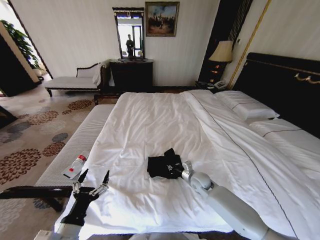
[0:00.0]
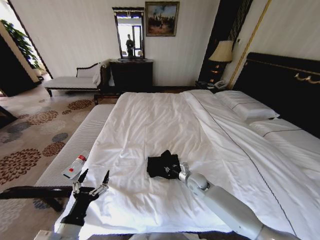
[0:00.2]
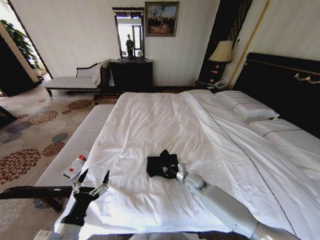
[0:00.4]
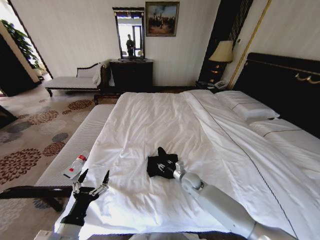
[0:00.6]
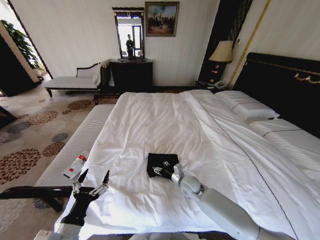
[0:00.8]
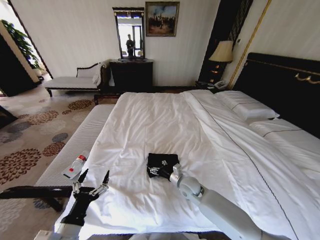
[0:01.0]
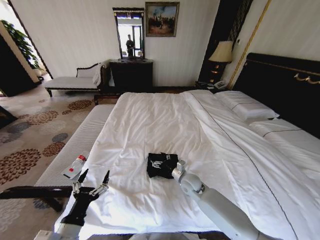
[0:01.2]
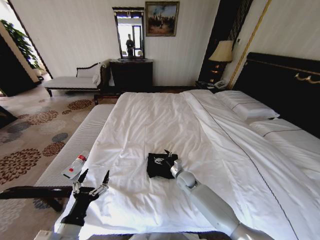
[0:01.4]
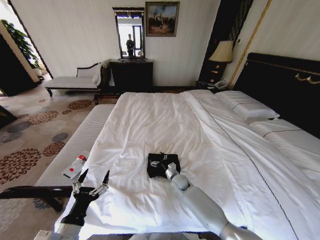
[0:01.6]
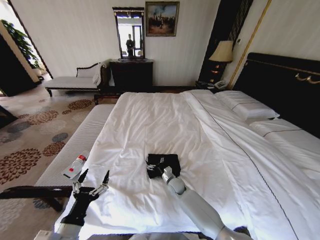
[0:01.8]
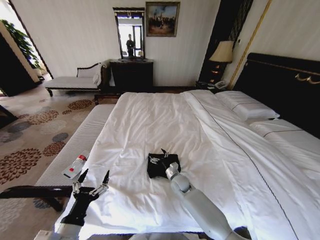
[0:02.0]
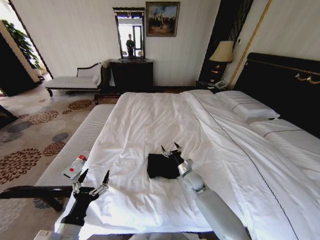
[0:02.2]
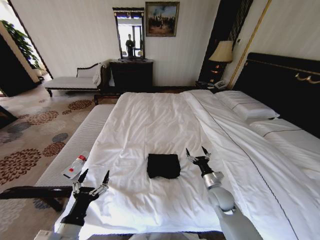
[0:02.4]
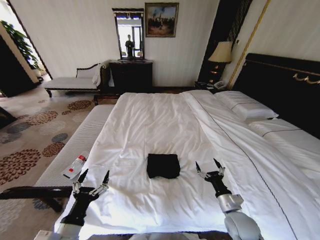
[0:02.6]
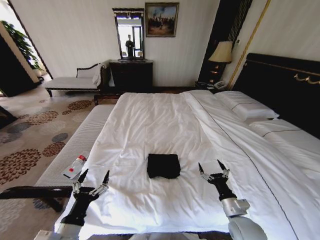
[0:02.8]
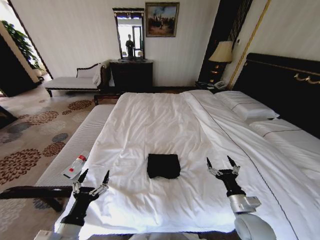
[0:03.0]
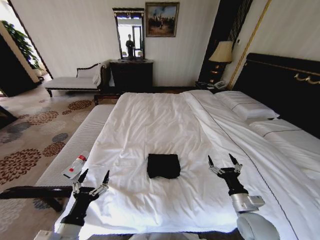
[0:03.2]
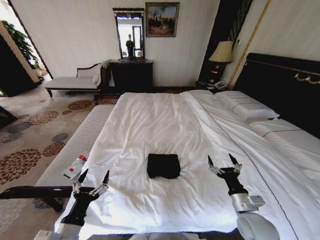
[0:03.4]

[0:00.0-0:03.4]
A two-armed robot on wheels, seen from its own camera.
Task of the whole recording: Fold the clothes on the bed.
0:00.0 to 0:01.6: The right gripper travels to the left and downward by roughly 10 cm, and opens up.
0:01.6 to 0:03.4: The right gripper moves backward, to the right and upward, roughly 30 cm.

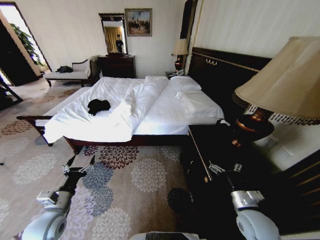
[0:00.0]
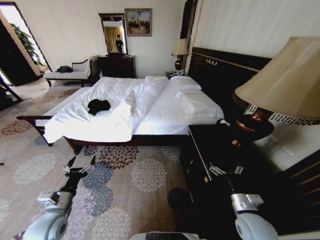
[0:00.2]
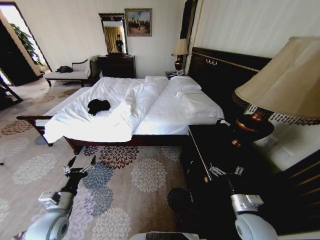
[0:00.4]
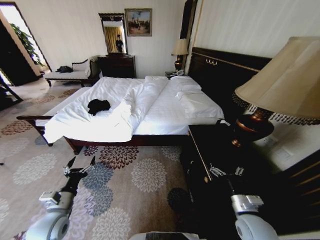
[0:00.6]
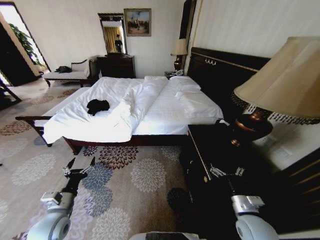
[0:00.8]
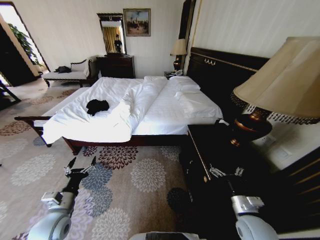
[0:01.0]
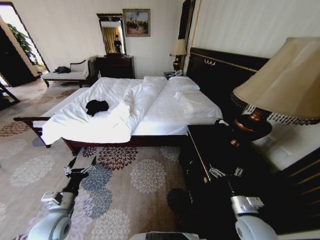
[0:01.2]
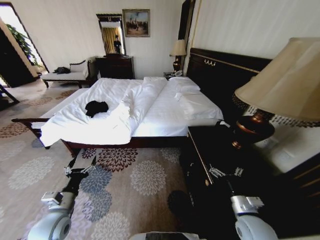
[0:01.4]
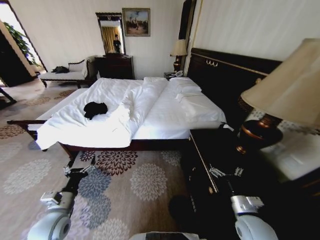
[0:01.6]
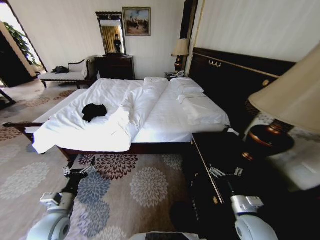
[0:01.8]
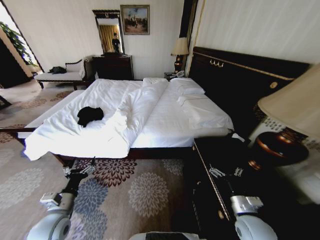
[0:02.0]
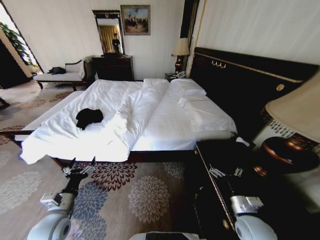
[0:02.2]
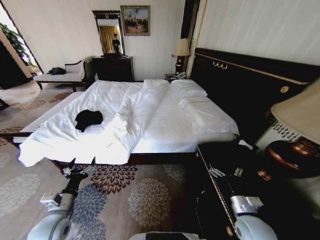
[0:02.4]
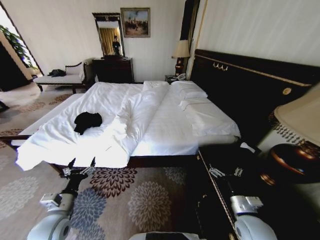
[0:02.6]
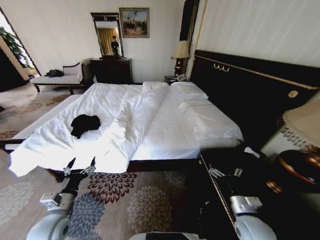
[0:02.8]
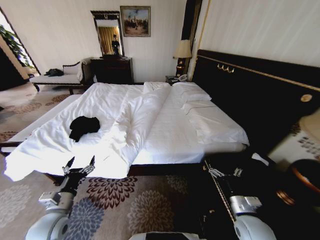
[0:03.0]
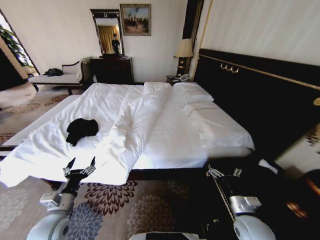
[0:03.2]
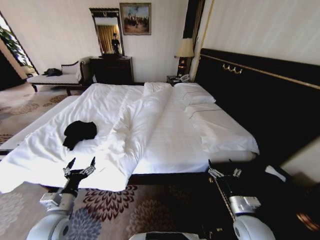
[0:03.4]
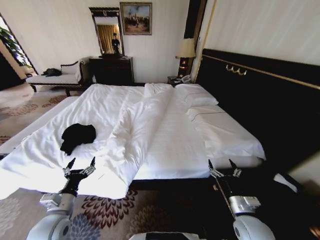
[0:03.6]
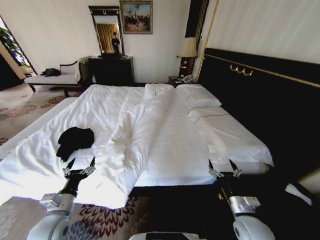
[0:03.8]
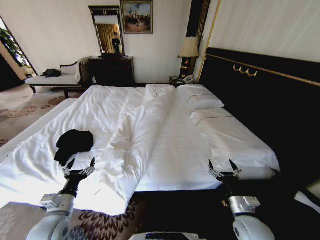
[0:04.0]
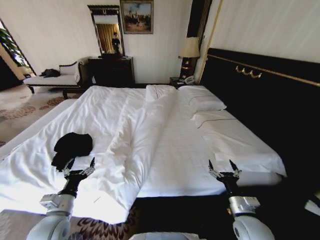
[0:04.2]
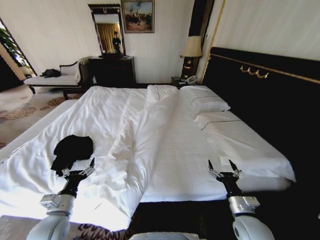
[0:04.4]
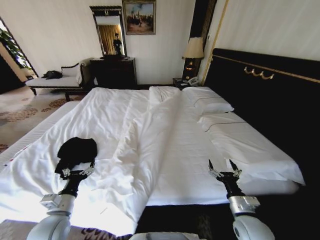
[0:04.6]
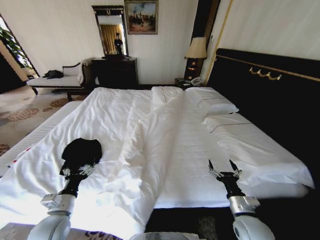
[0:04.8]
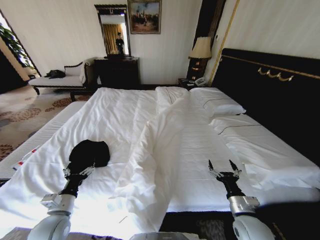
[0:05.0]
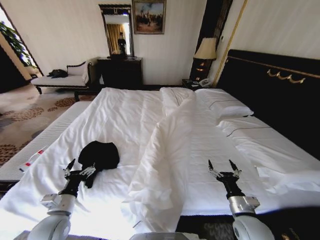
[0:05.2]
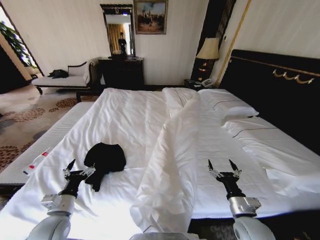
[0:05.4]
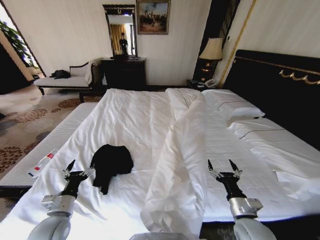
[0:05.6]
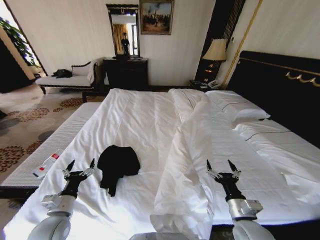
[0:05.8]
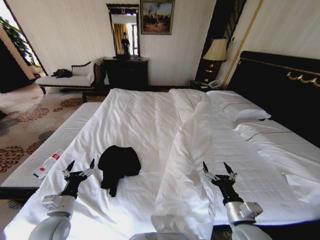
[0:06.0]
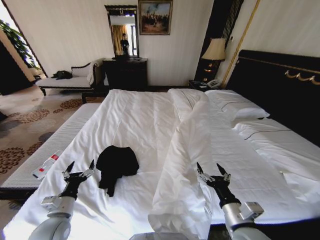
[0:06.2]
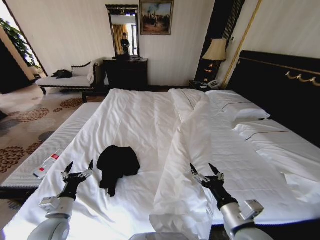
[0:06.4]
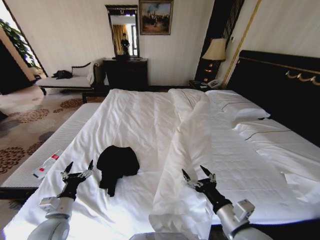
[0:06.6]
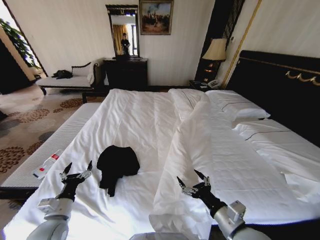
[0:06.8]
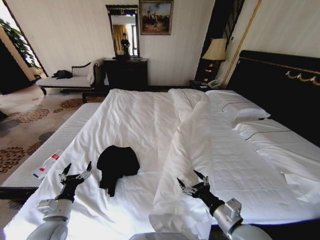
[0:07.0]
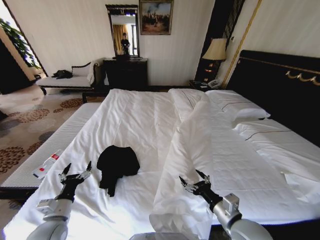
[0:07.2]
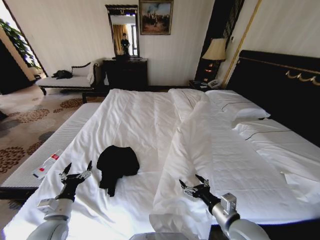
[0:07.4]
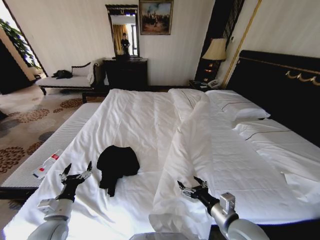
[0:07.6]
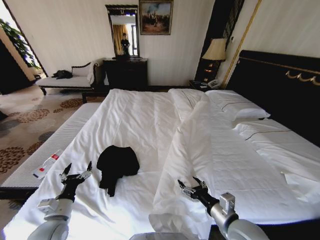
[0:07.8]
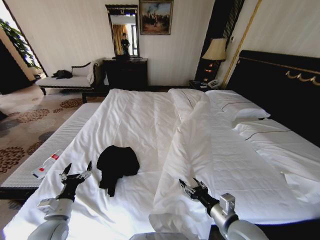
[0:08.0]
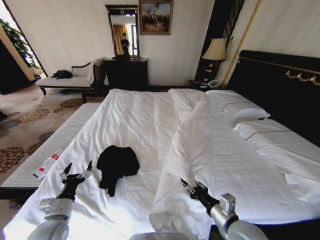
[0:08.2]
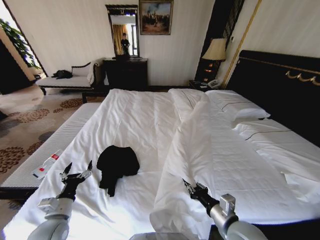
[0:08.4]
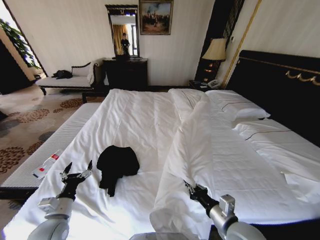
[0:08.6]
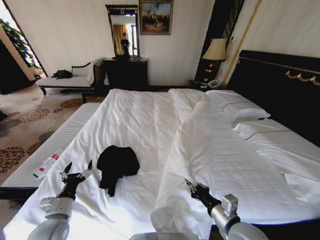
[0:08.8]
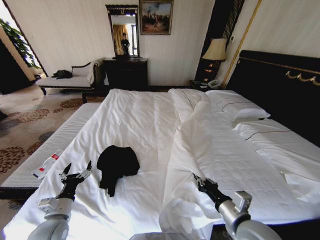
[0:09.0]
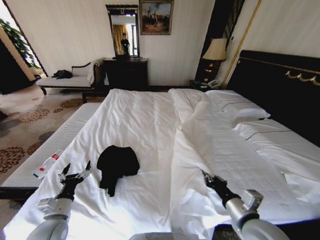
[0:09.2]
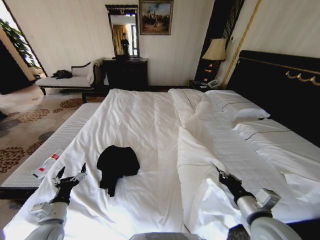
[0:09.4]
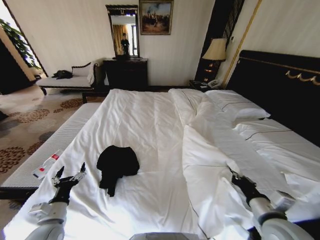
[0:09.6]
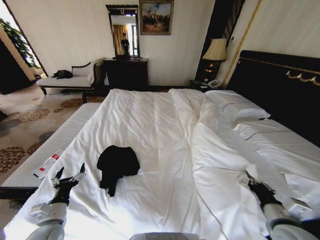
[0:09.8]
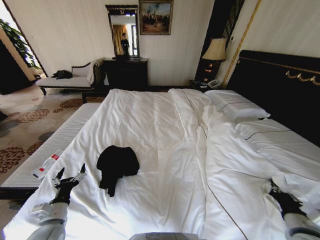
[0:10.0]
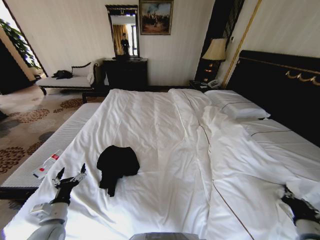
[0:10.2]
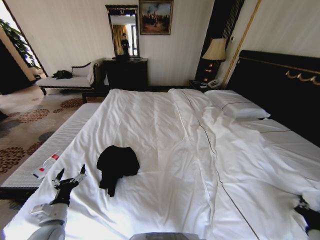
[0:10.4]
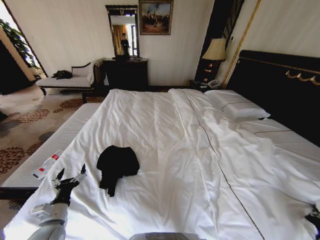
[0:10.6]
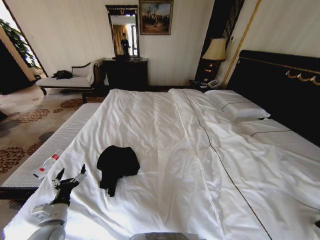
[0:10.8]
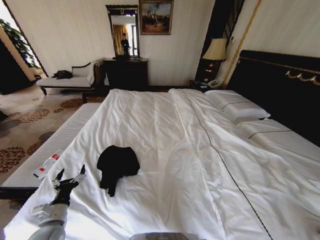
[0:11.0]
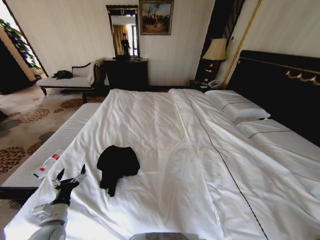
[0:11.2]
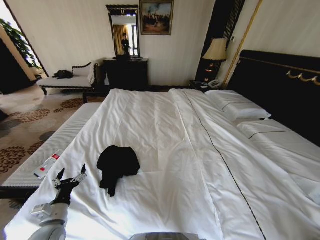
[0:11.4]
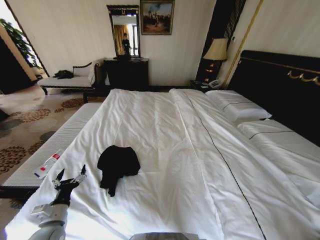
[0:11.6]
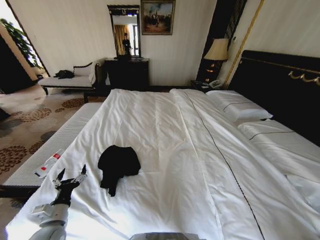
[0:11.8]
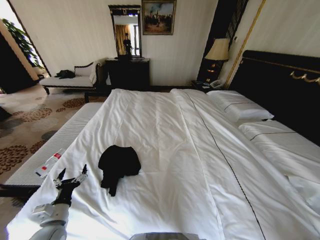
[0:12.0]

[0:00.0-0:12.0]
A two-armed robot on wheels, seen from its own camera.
Task of the whole recording: Fold the clothes on the bed.
0:04.4 to 0:06.0: The right gripper changes place by some 5 cm.
0:07.6 to 0:09.0: The right gripper closes its fingers.
0:09.0 to 0:10.4: The right gripper moves to the right, approximately 20 cm.
0:10.4 to 0:12.0: The right gripper shifts some 15 cm downward, backward and to the right.

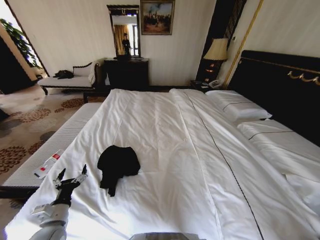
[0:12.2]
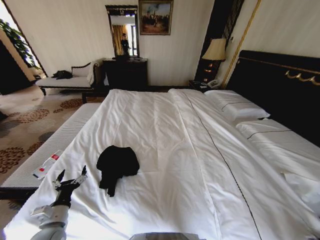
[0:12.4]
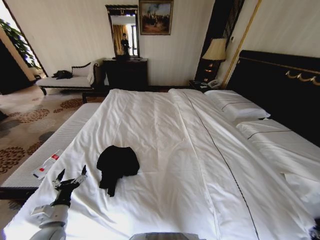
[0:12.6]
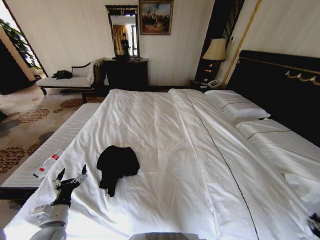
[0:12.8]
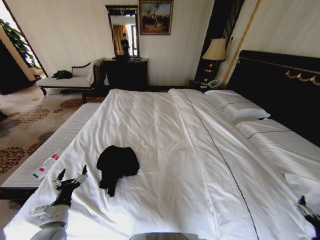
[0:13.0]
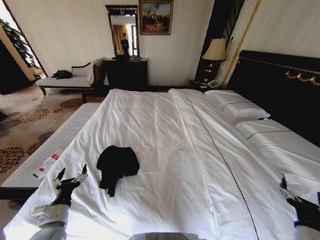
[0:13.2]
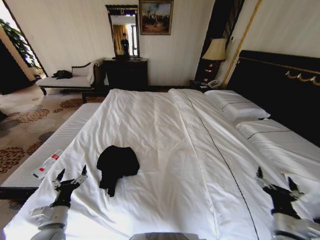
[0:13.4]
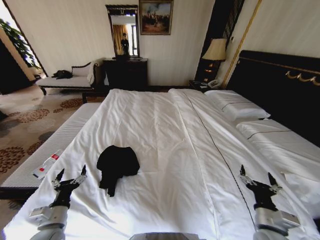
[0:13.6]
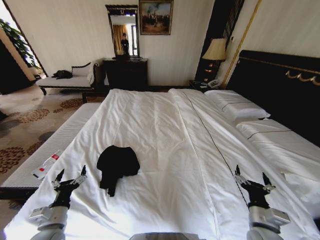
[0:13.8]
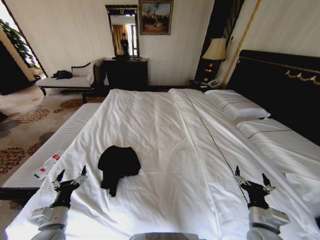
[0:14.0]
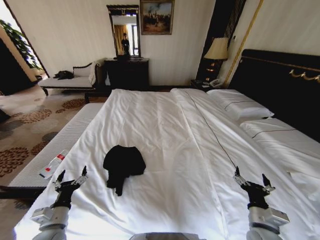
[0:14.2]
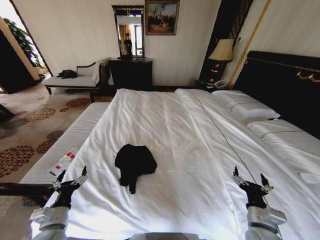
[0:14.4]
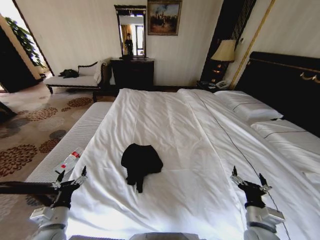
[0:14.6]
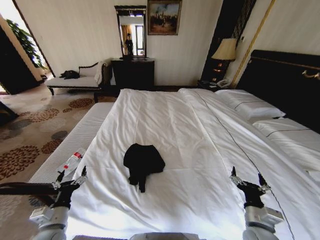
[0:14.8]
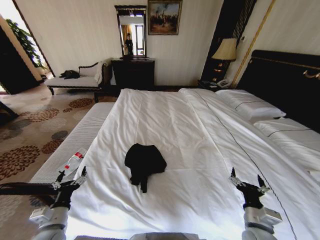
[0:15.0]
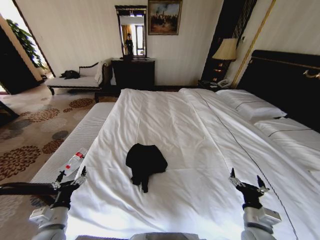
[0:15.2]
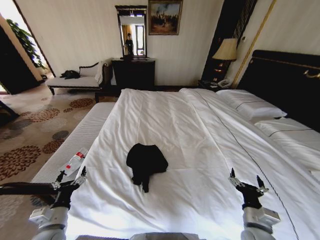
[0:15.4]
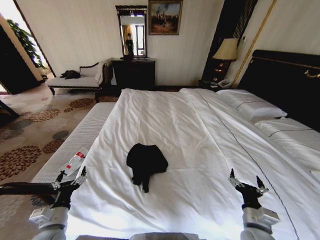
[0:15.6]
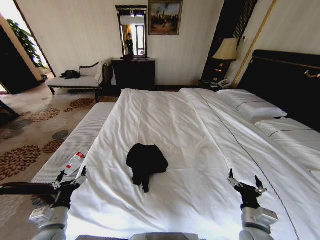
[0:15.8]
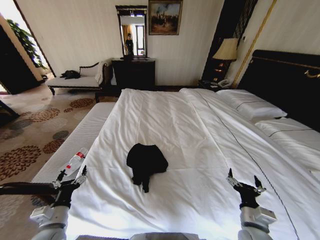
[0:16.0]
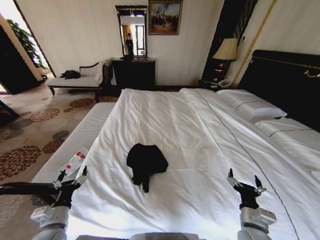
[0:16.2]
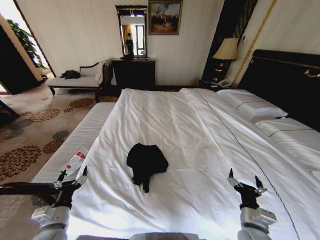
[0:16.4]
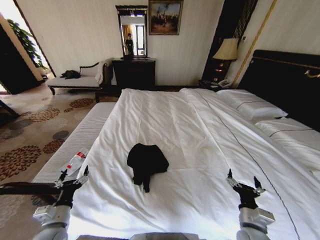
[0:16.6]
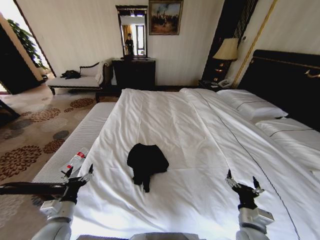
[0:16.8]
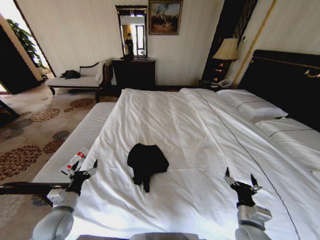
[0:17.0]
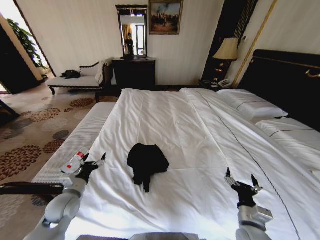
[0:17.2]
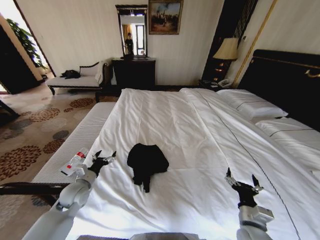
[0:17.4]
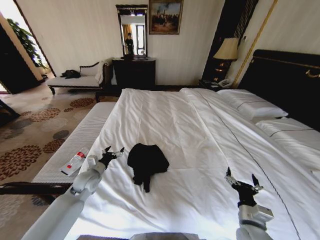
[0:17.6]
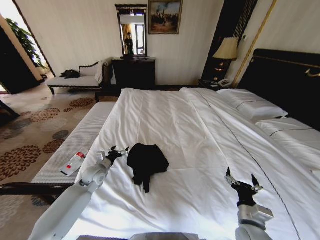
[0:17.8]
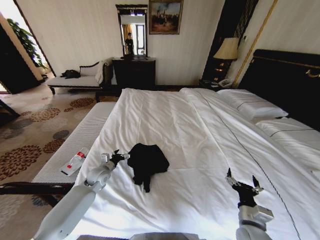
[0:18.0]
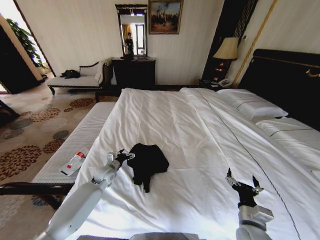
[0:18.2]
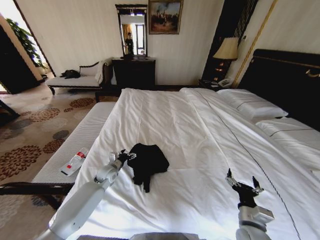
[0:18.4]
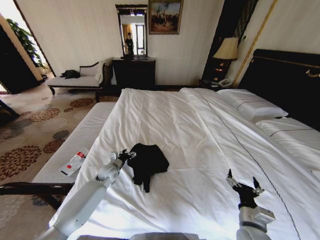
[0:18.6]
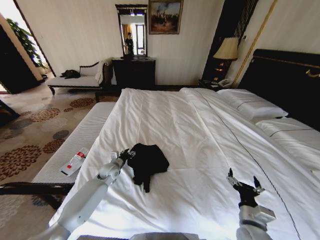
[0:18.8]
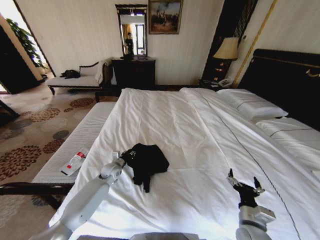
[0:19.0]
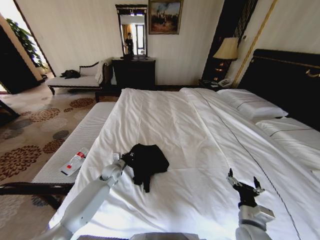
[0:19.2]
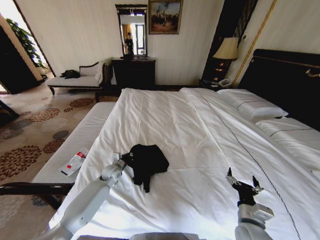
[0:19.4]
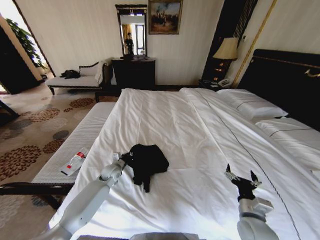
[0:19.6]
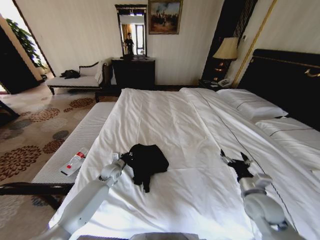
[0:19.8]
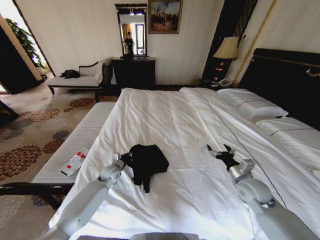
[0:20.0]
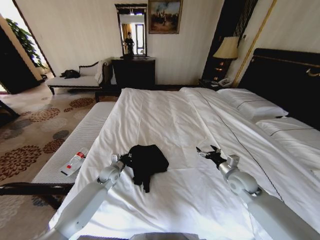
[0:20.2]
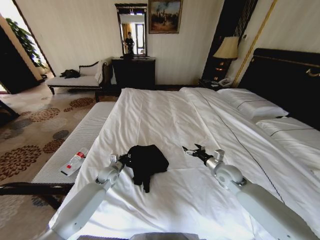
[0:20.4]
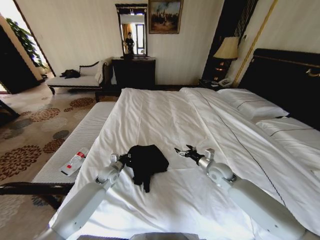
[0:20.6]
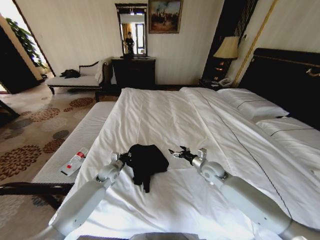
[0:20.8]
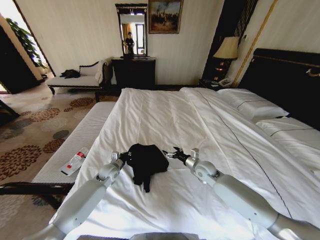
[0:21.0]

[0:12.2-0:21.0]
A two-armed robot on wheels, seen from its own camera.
Task of the whole recording: Fold the clothes on the bed.
0:12.2 to 0:13.6: The right gripper goes roughly 25 cm to the left, upward and forward, and opens.
0:15.2 to 0:16.6: The grippers make only small movements.
0:16.6 to 0:18.0: The left gripper moves forward, approximately 25 cm.
0:18.0 to 0:19.6: The left gripper travels to the right by about 5 cm, and closes its fingers.
0:19.6 to 0:21.0: The right gripper heads forward, covering approximately 25 cm.
